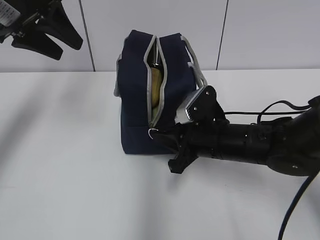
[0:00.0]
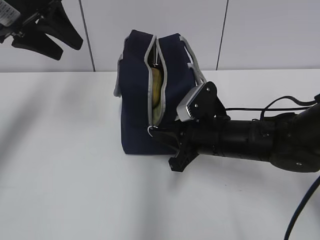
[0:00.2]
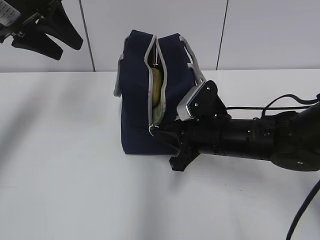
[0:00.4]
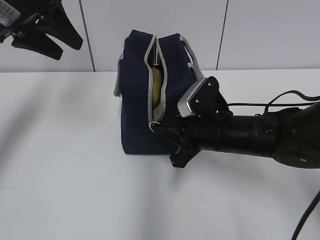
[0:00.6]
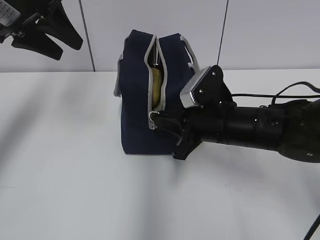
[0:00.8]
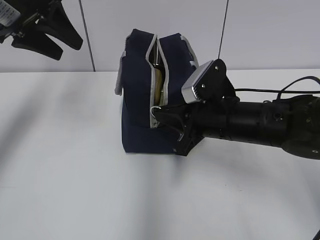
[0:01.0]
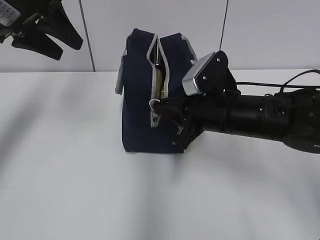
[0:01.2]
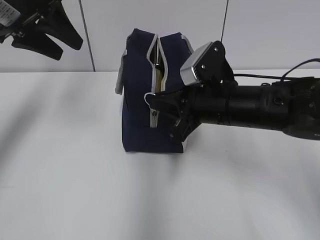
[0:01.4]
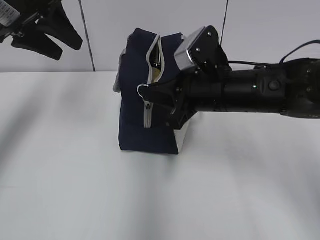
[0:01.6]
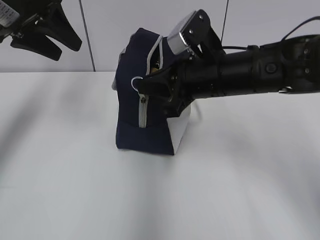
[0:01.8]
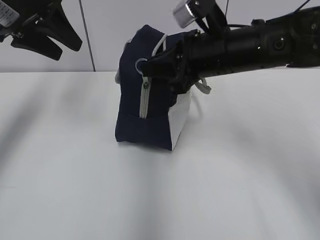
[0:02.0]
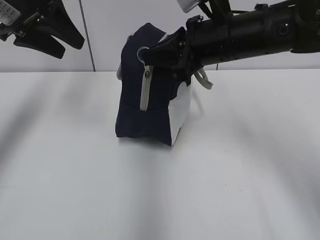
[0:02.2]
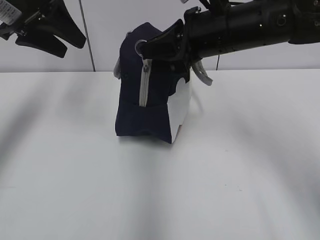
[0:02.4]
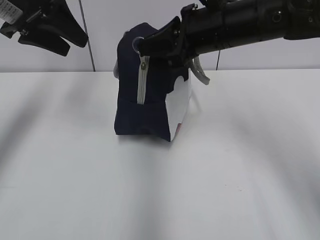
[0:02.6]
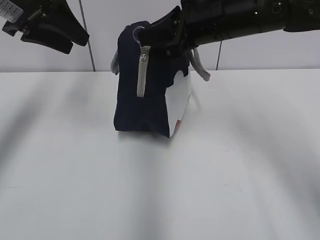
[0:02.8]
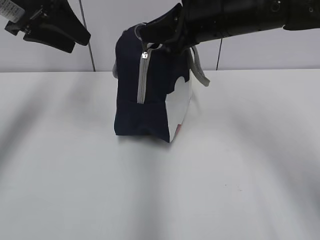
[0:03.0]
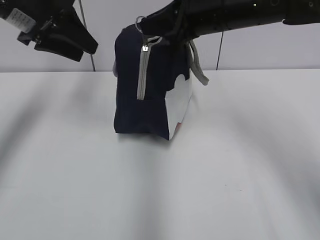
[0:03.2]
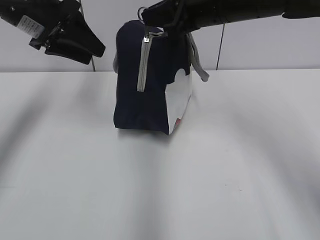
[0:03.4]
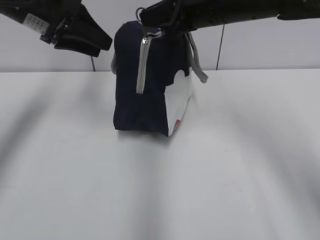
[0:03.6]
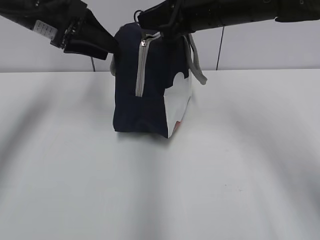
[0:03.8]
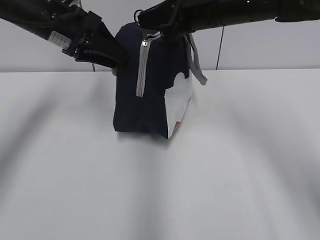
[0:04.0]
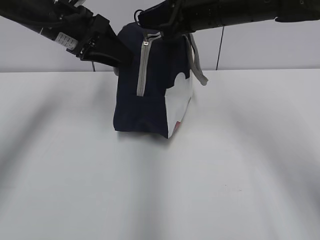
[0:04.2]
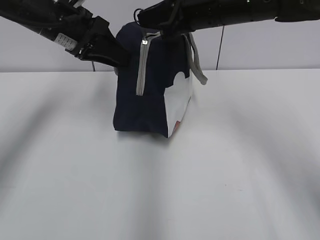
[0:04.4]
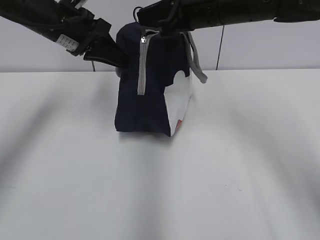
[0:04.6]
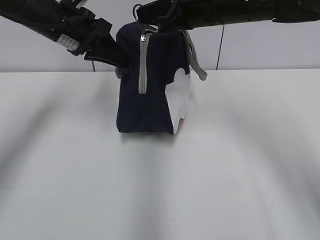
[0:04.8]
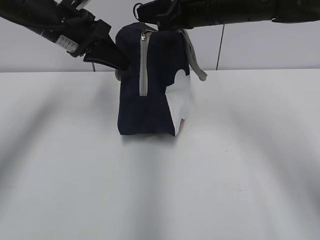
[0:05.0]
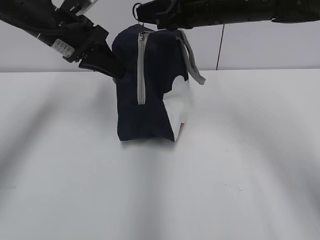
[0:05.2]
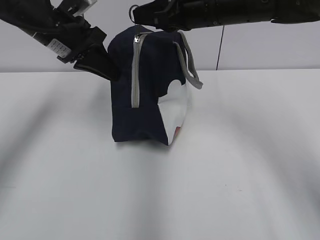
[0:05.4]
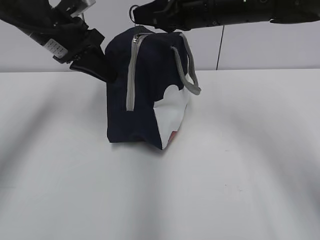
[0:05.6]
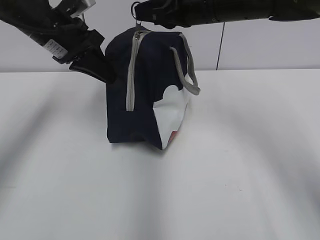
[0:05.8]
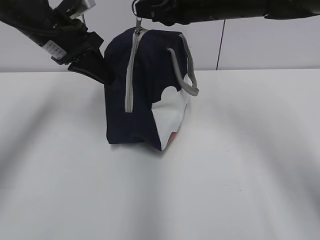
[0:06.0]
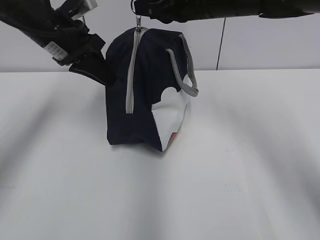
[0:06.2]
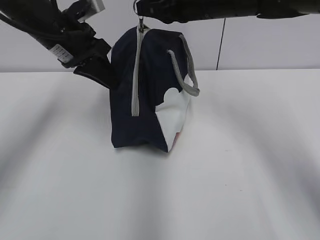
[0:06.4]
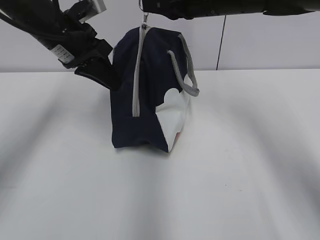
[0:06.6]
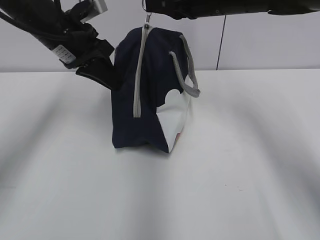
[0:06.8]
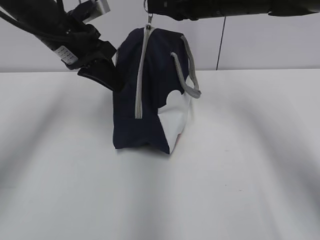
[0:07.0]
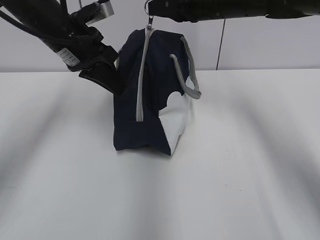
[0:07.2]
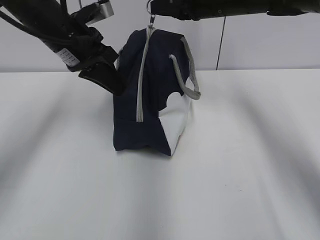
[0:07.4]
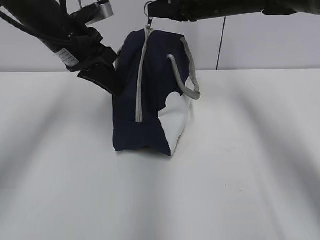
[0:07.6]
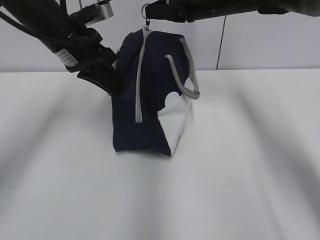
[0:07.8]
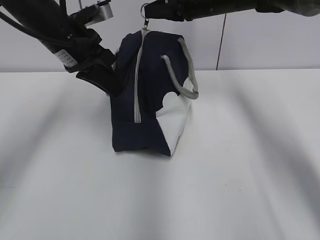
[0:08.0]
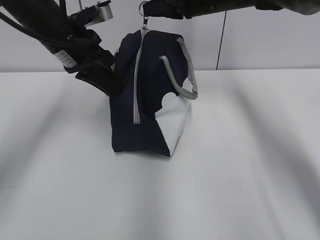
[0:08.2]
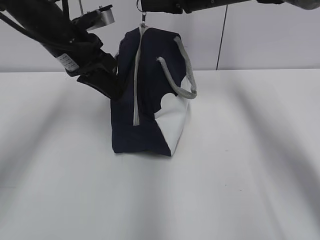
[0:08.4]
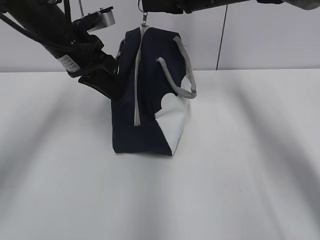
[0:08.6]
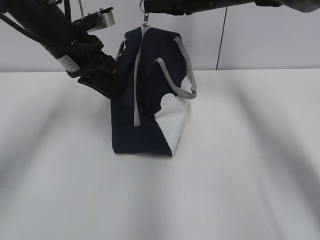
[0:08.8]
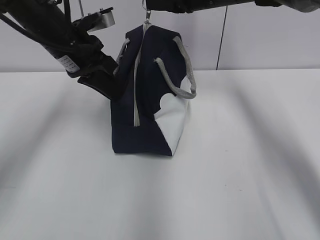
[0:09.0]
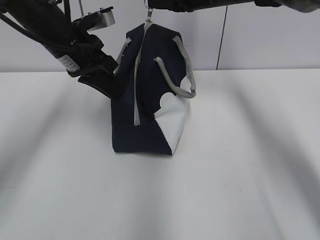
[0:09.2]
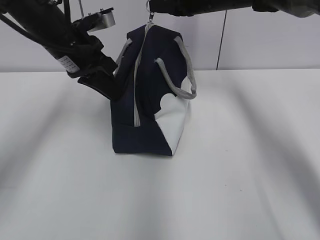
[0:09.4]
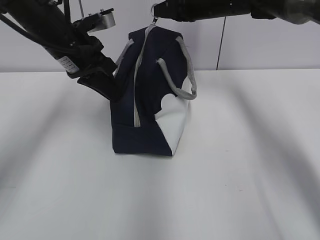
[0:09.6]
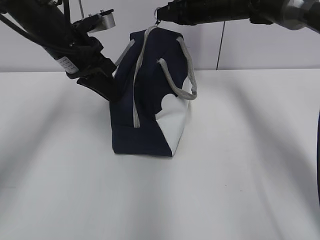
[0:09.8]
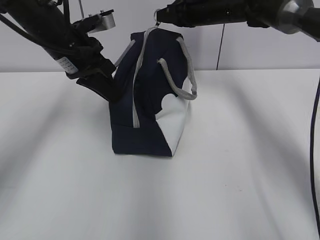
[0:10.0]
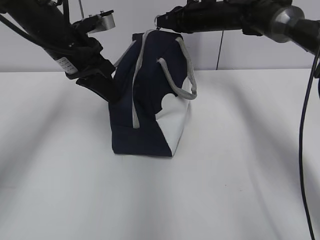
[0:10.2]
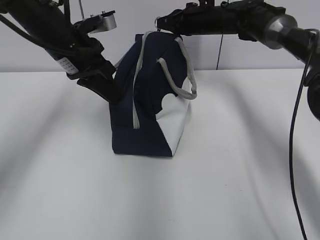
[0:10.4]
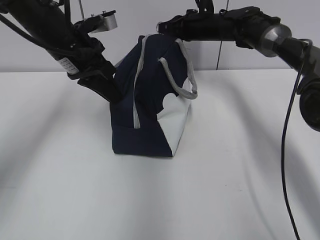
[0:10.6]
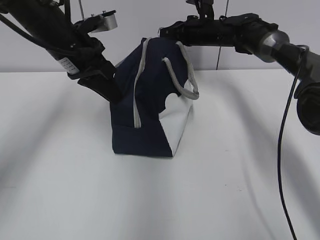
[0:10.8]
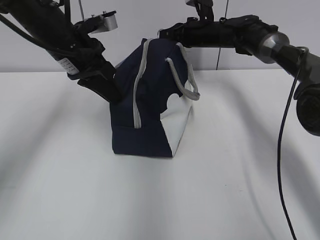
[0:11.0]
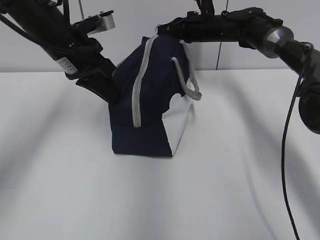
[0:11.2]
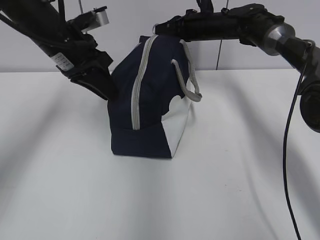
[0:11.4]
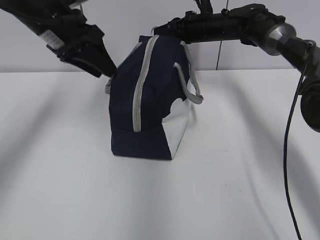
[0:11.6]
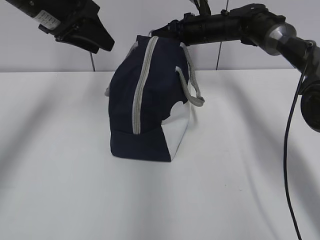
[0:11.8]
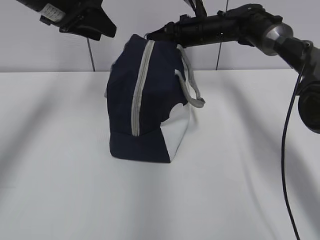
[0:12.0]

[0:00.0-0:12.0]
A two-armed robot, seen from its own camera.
0:00.0 to 0:01.6: The right gripper moves upward, roughly 10 cm.
0:01.6 to 0:03.0: The right gripper heads upward and forward, covering some 10 cm.
0:03.0 to 0:04.4: The left gripper travels downward by approximately 5 cm.
0:04.4 to 0:06.0: The left gripper closes up.
0:06.0 to 0:07.6: The right gripper goes about 5 cm forward.
0:07.6 to 0:09.0: There are only small adjustments of the grippers.
0:09.0 to 0:10.4: The right gripper shifts roughly 10 cm downward and forward.
0:10.4 to 0:12.0: The left gripper shifts about 5 cm upward, and opens up.

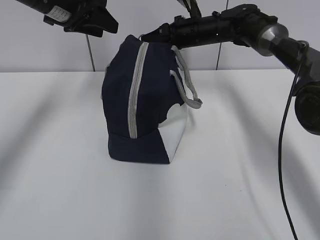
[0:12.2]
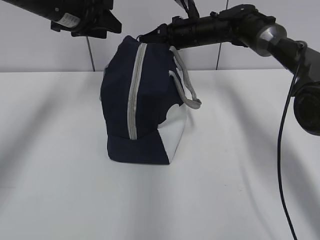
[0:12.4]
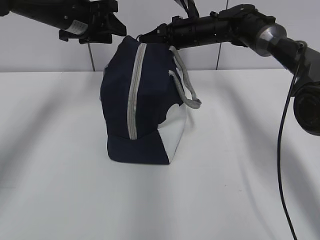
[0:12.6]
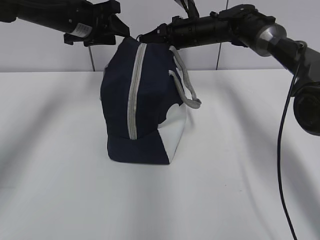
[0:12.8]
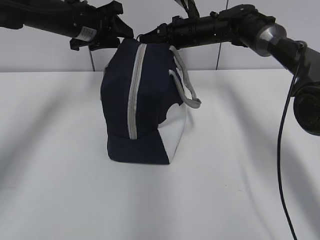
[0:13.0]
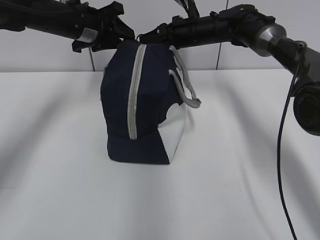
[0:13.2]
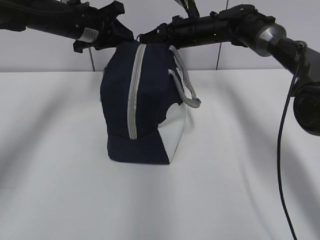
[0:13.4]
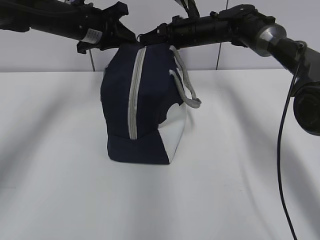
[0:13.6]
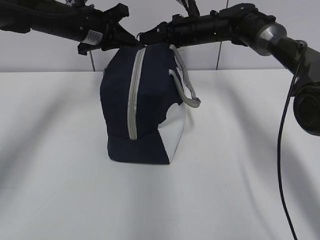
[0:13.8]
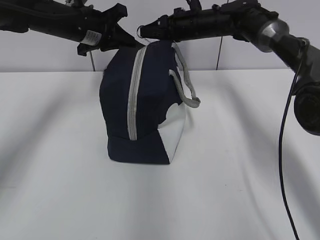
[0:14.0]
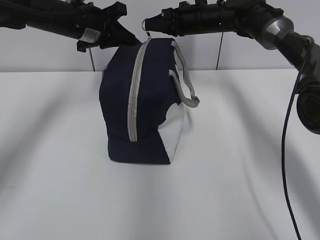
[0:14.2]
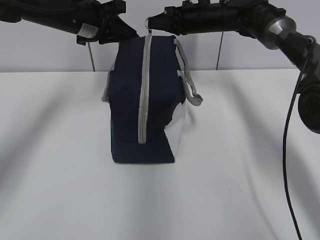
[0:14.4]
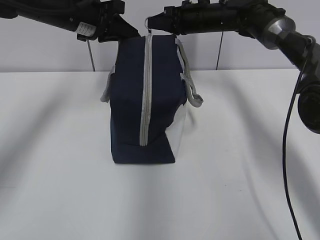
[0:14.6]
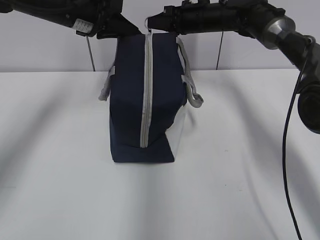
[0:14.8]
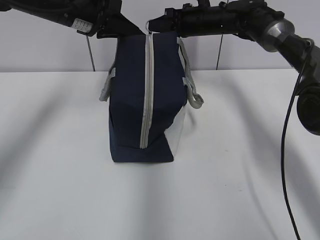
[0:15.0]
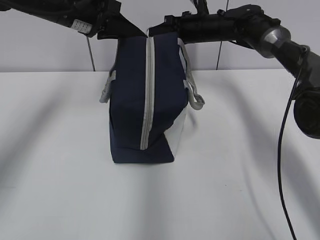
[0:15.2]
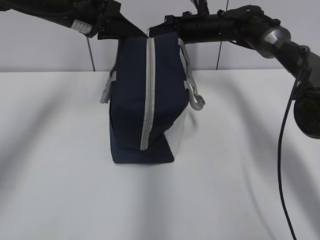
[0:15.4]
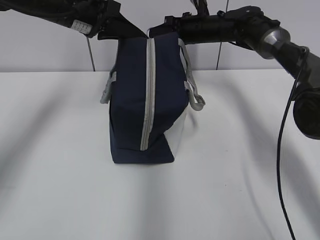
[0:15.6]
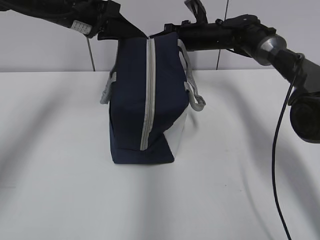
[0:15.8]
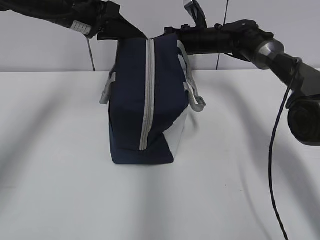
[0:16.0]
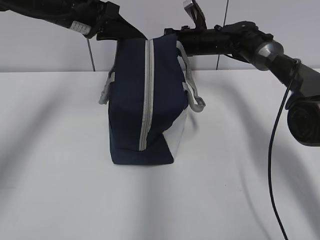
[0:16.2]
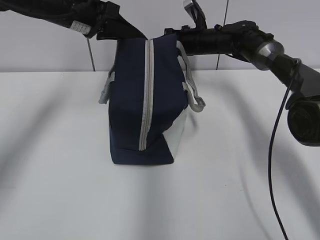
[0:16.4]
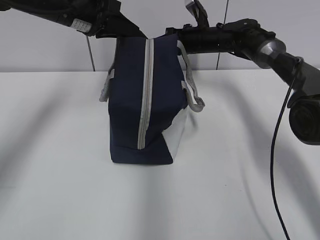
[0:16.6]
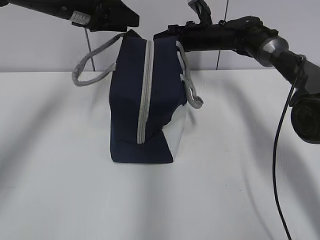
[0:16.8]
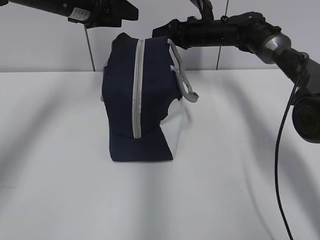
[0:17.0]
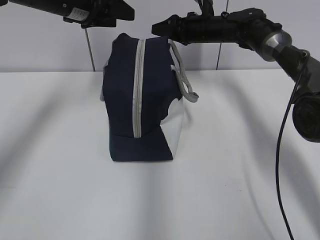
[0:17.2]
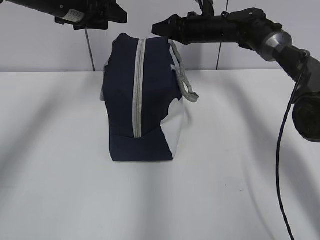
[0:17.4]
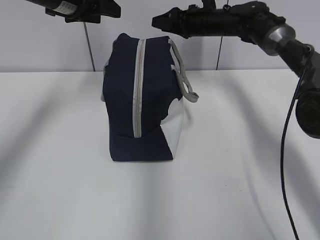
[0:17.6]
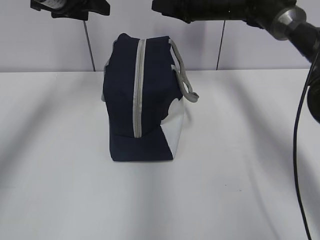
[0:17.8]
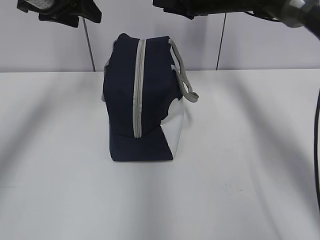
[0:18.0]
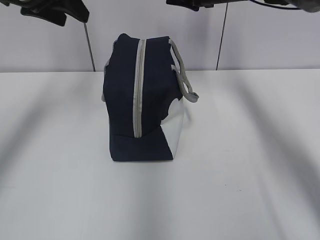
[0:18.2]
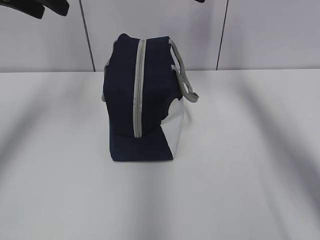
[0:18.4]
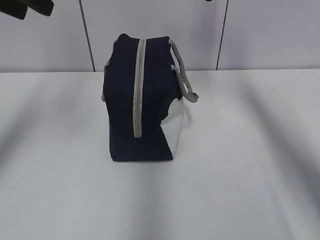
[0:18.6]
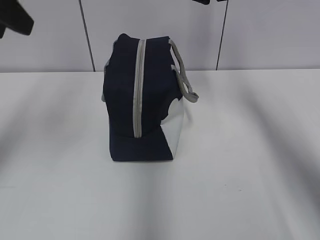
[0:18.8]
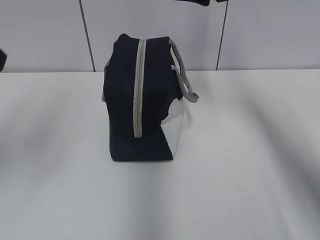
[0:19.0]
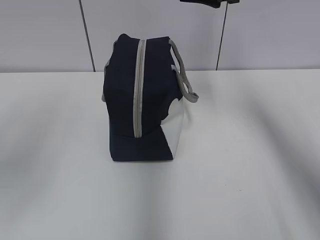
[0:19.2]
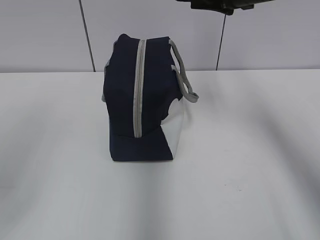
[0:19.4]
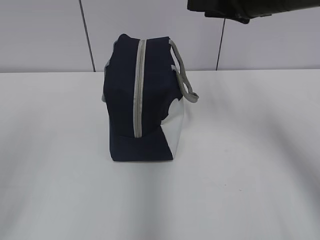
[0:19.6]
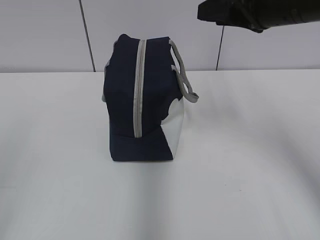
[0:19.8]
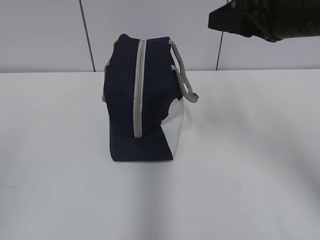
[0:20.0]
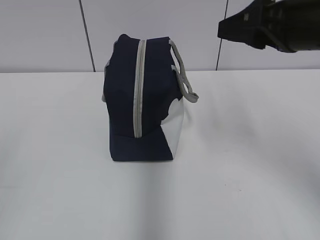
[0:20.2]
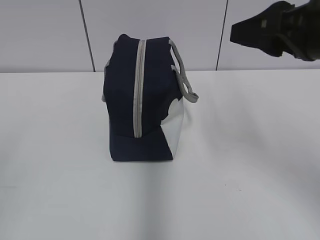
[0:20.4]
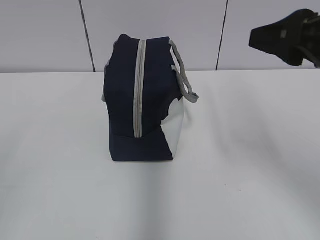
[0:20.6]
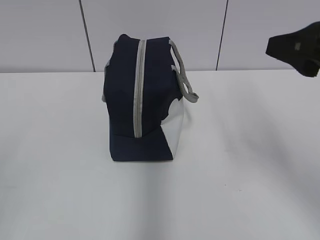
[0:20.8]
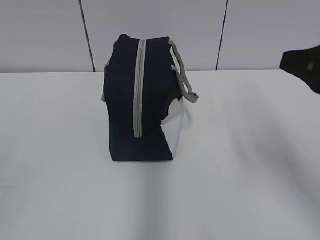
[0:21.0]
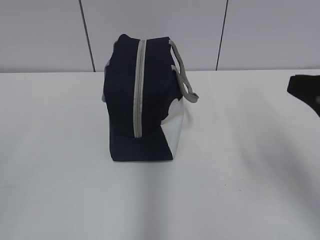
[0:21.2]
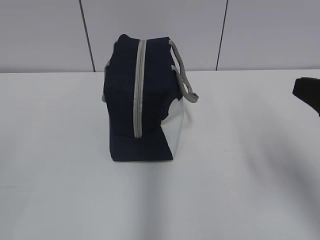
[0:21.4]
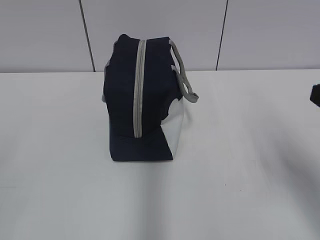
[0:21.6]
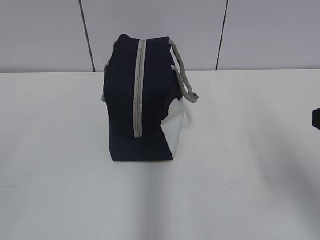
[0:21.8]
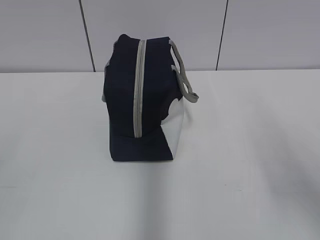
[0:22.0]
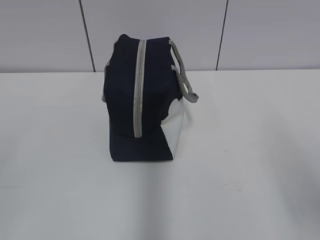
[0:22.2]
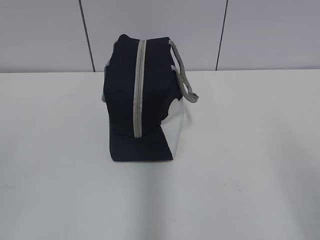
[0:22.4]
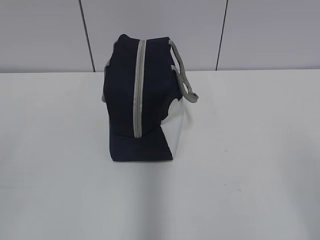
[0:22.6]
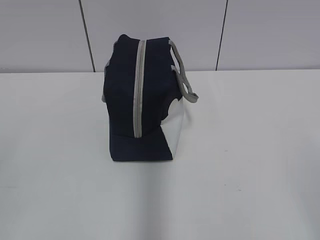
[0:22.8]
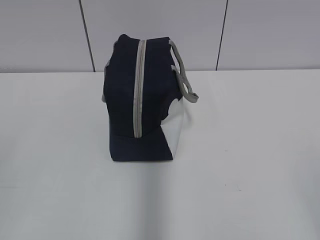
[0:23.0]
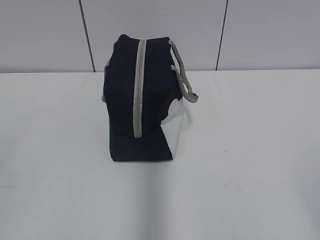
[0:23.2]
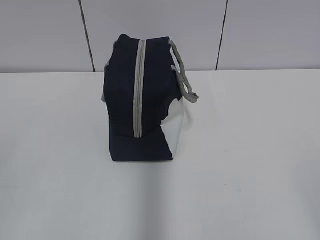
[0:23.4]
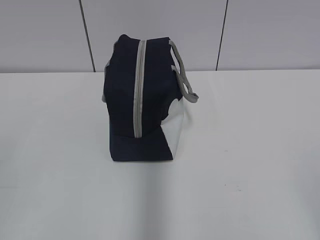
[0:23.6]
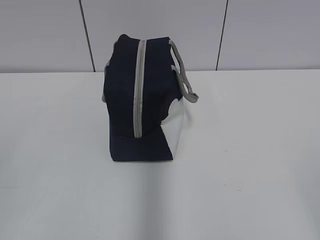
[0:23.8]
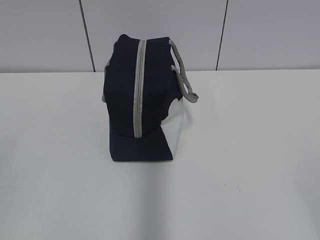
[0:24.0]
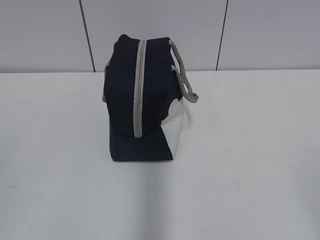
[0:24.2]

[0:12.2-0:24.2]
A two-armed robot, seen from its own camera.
0:12.2 to 0:13.8: The left gripper moves downward, about 5 cm, and closes up.
0:13.8 to 0:15.2: The left gripper changes place by about 5 cm.
0:15.2 to 0:16.6: The grippers make only small movements.
0:16.6 to 0:18.2: The right gripper shifts roughly 15 cm upward, and opens, while the left gripper is displaced upward by approximately 5 cm, and opens.
0:18.2 to 0:19.8: The right gripper moves backward, some 20 cm; the left gripper shifts about 35 cm backward.
0:19.8 to 0:21.2: The right gripper travels backward by some 15 cm.
0:21.2 to 0:22.6: The right gripper shifts some 15 cm backward.
